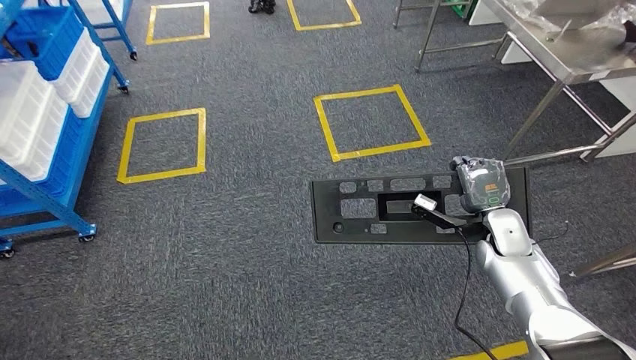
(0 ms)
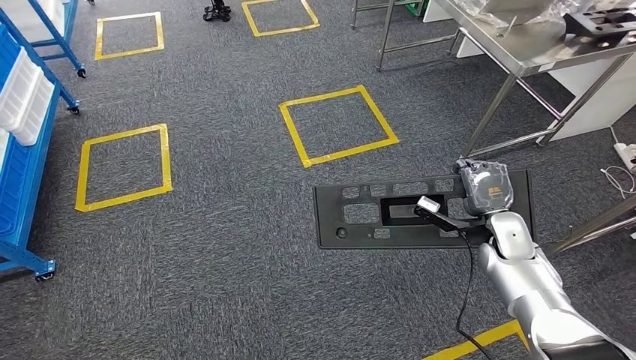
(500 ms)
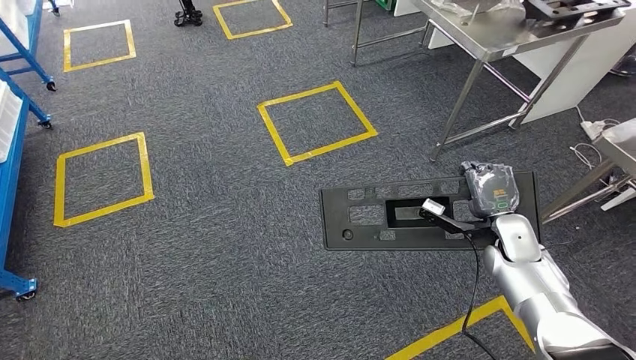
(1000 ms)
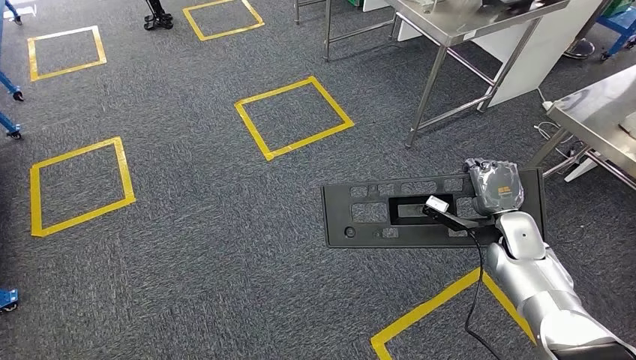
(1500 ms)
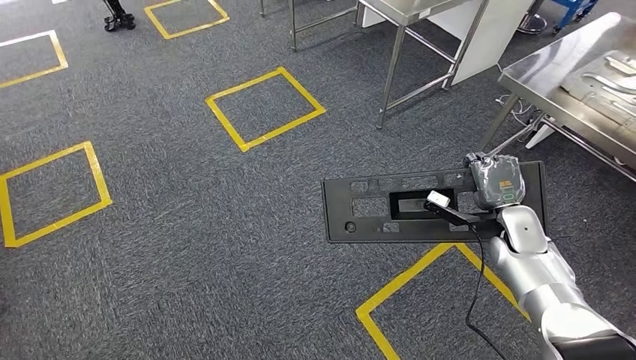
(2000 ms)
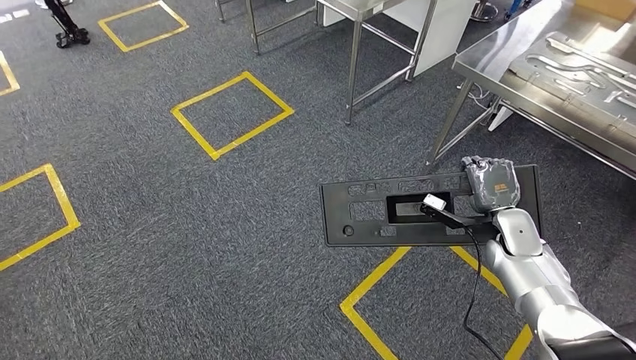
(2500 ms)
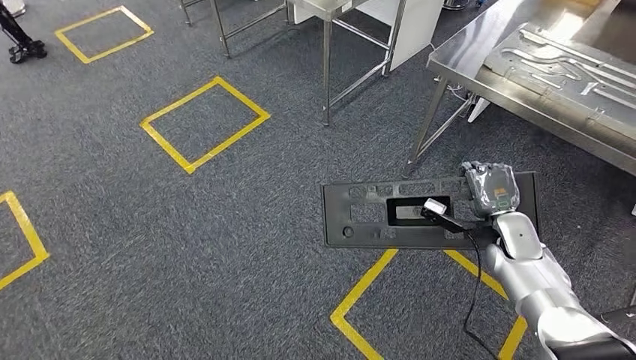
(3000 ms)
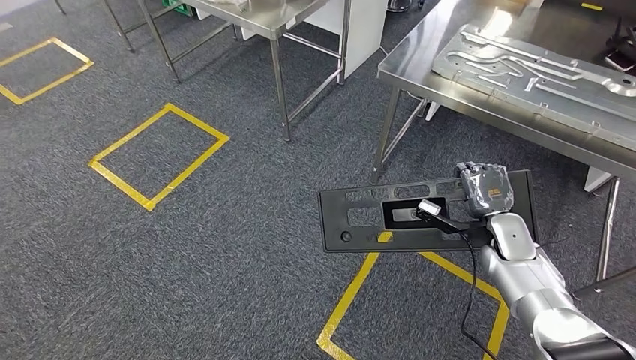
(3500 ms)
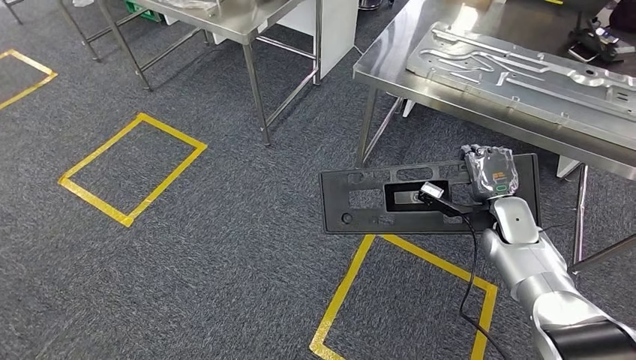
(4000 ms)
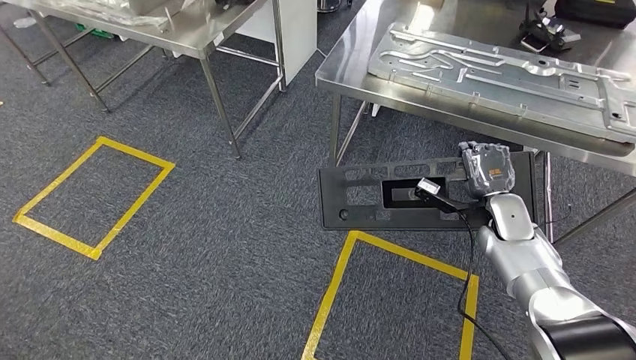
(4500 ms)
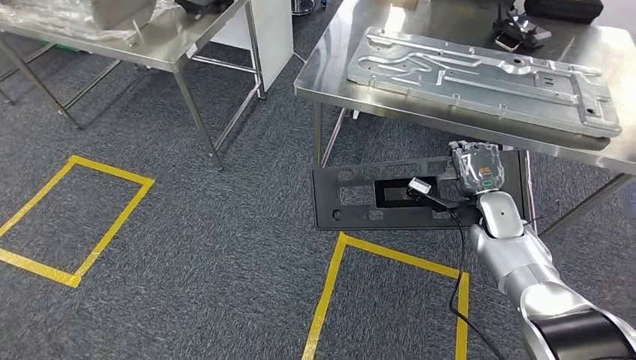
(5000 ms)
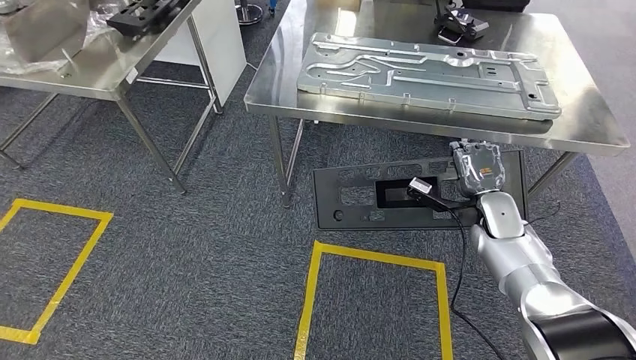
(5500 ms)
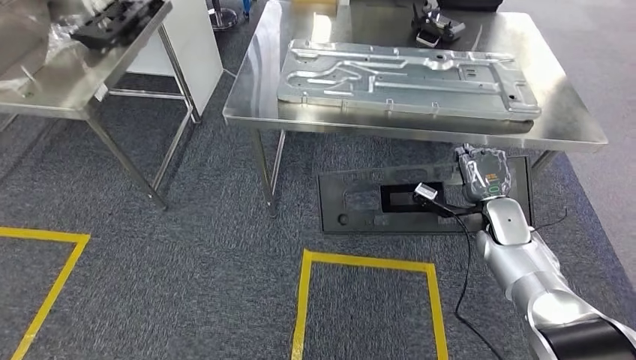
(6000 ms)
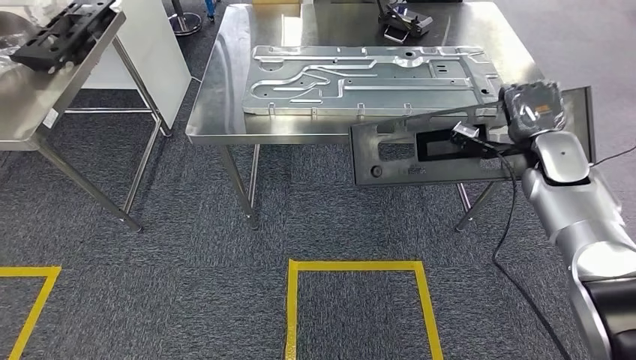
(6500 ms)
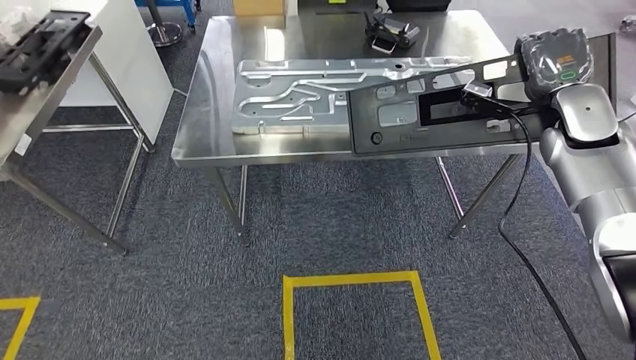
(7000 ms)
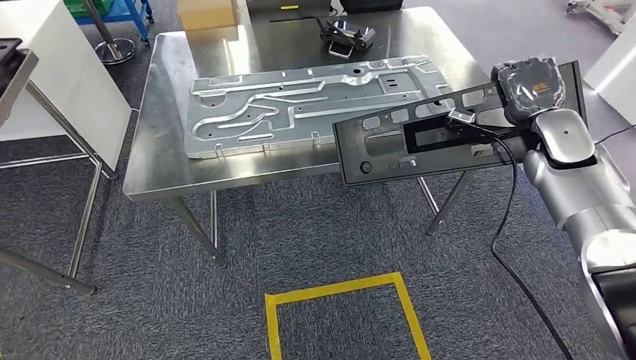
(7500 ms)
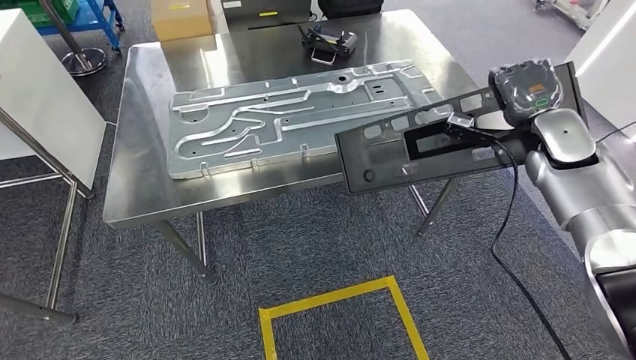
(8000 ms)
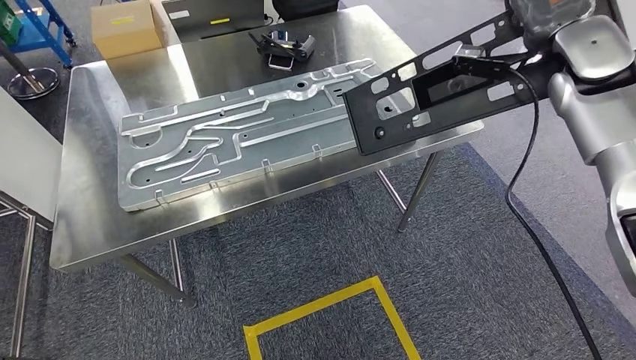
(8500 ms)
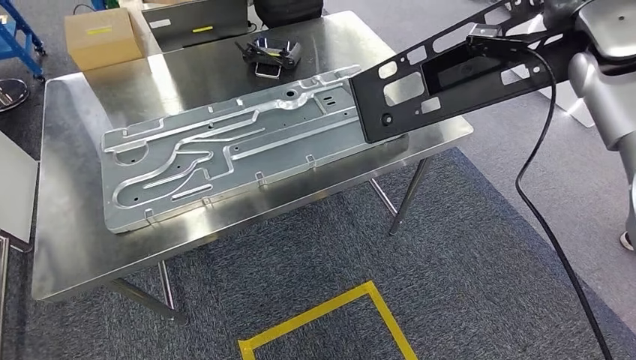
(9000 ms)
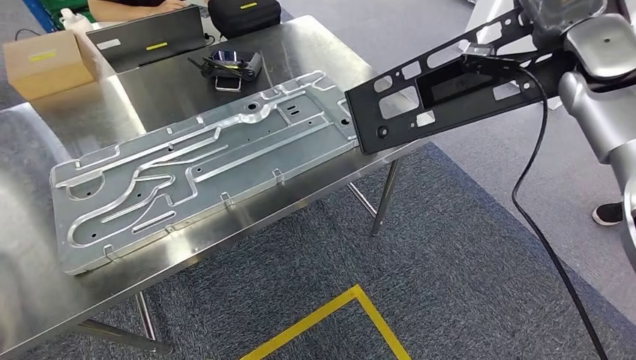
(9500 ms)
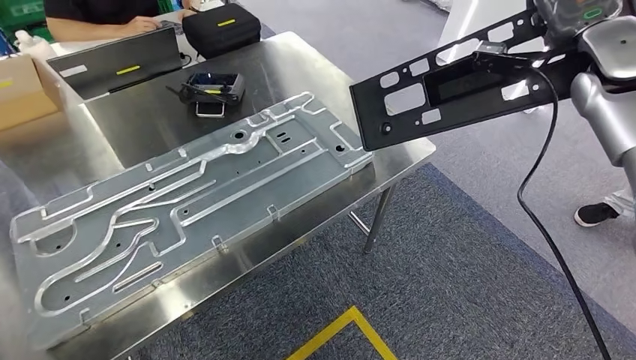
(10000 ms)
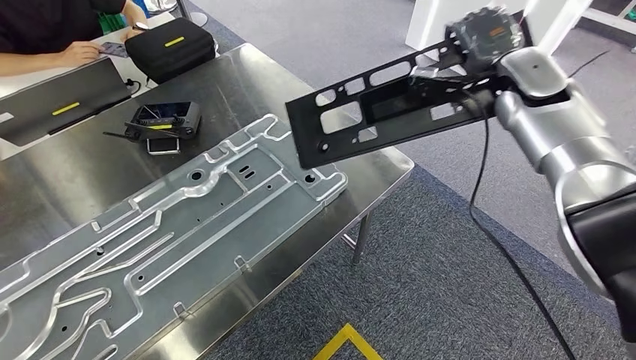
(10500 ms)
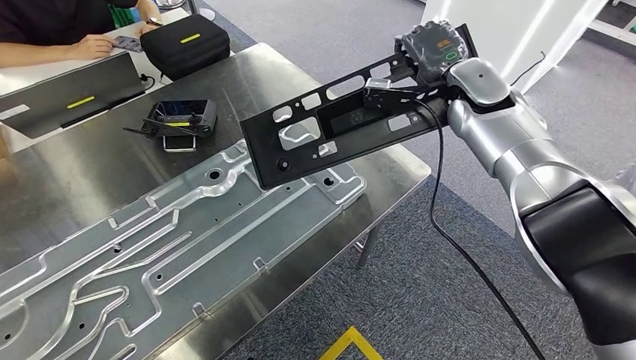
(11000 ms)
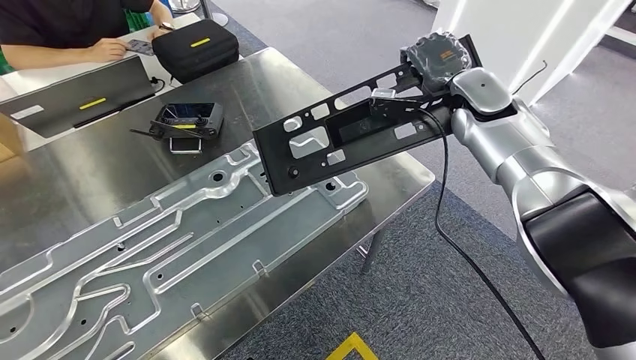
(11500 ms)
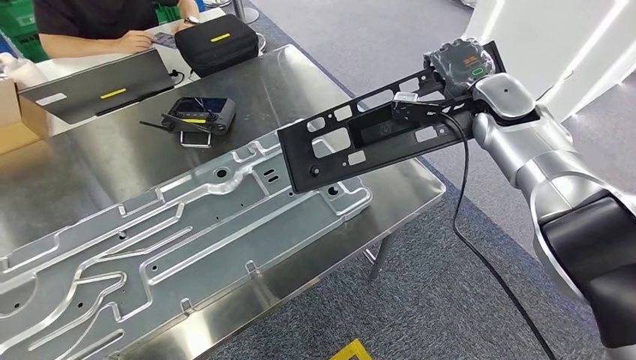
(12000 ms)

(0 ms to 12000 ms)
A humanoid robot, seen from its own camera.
Step, 0 ms - 7500 ms: Move the large material to the workbench.

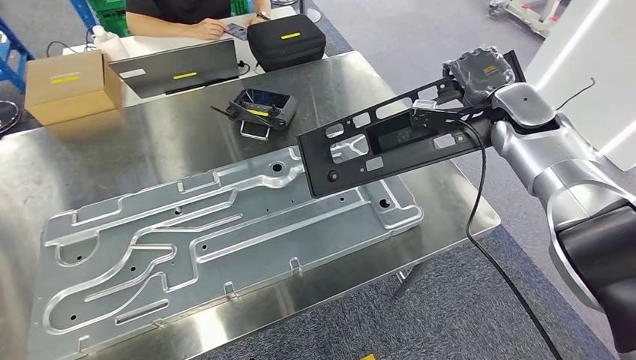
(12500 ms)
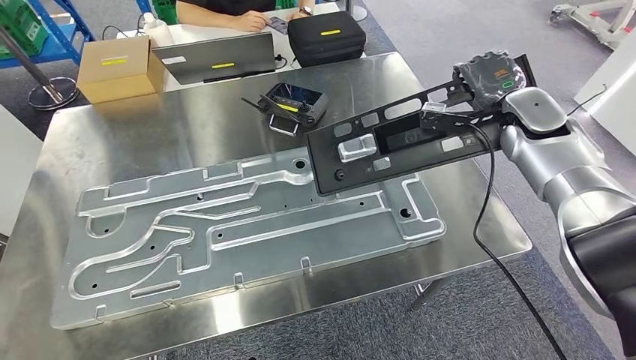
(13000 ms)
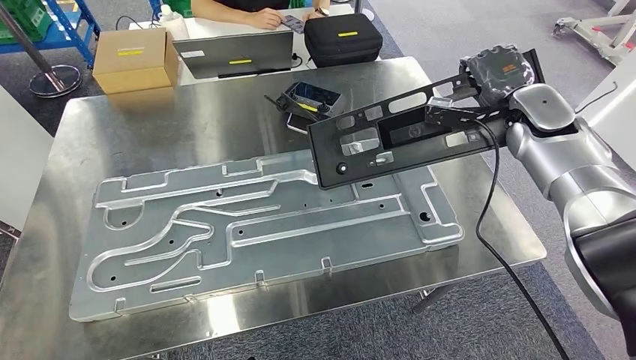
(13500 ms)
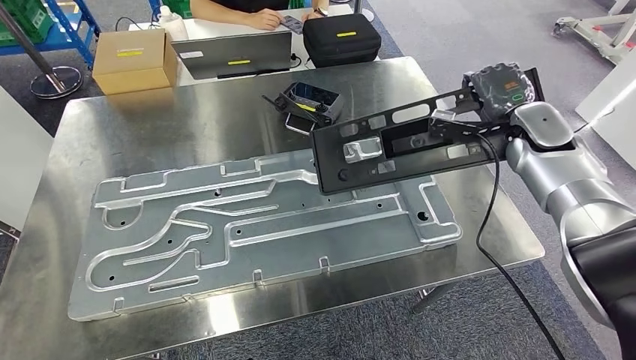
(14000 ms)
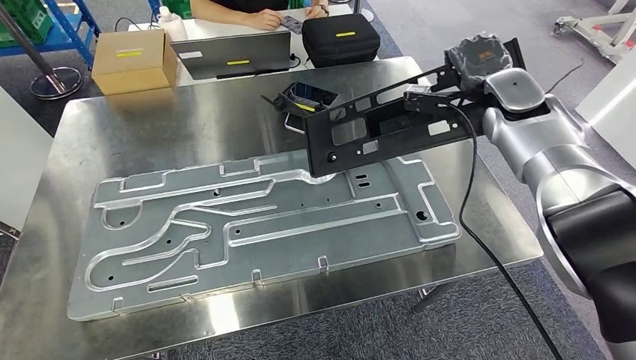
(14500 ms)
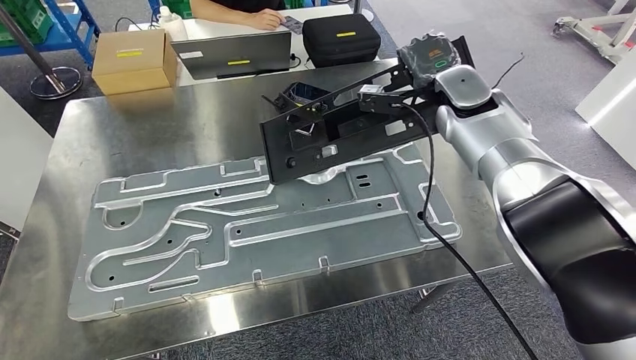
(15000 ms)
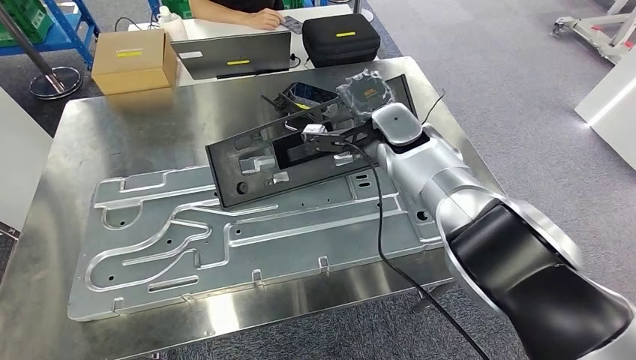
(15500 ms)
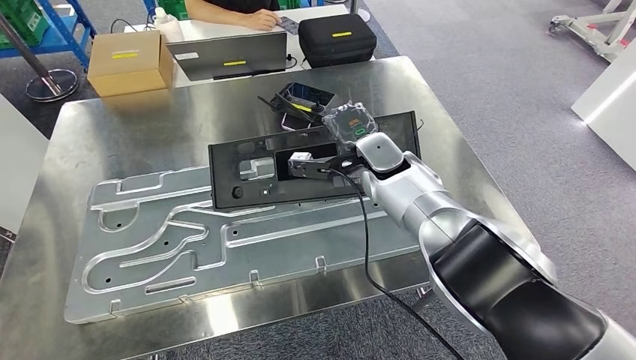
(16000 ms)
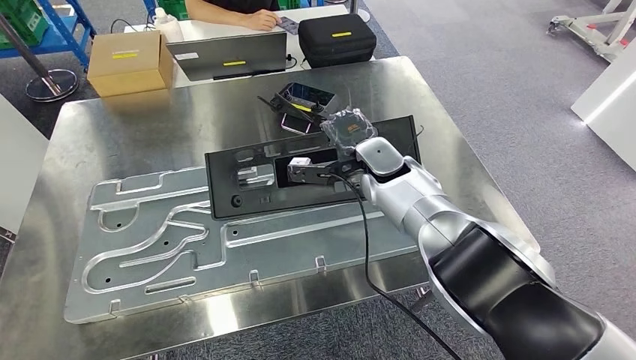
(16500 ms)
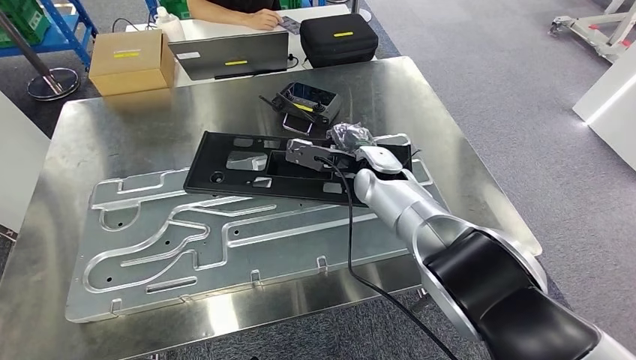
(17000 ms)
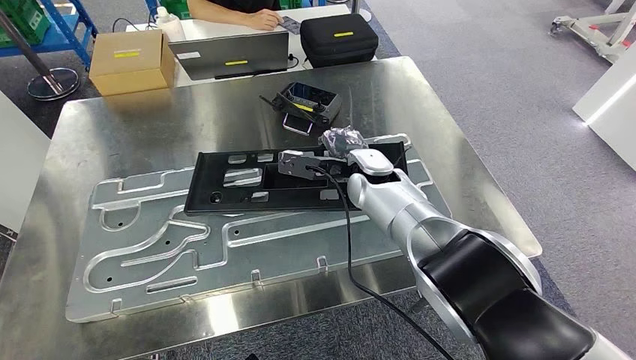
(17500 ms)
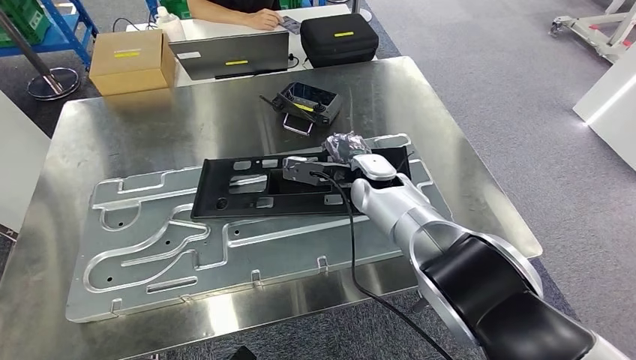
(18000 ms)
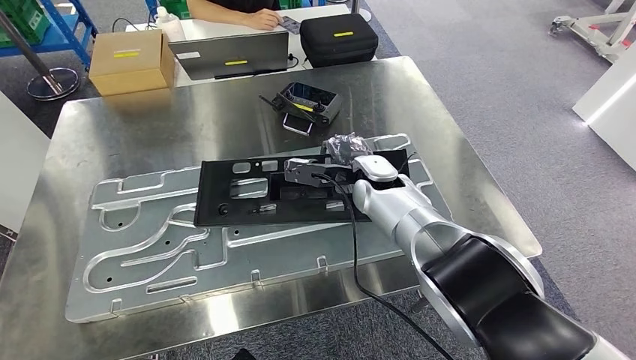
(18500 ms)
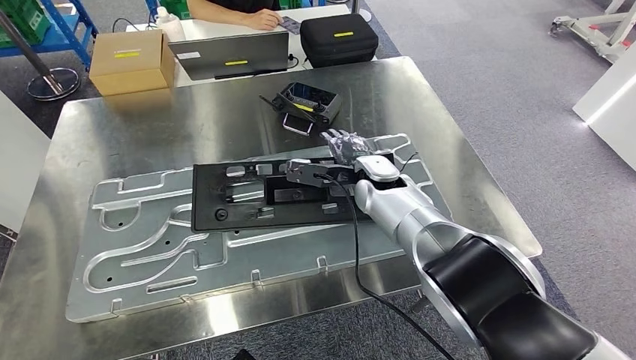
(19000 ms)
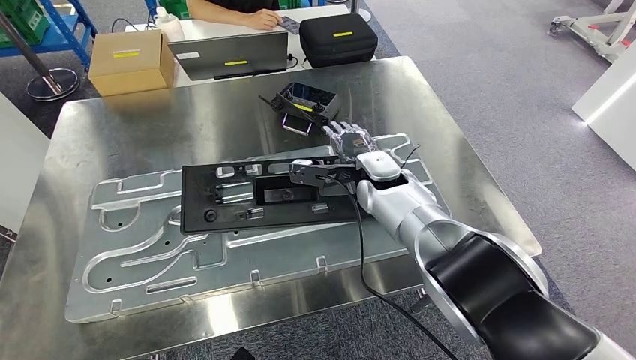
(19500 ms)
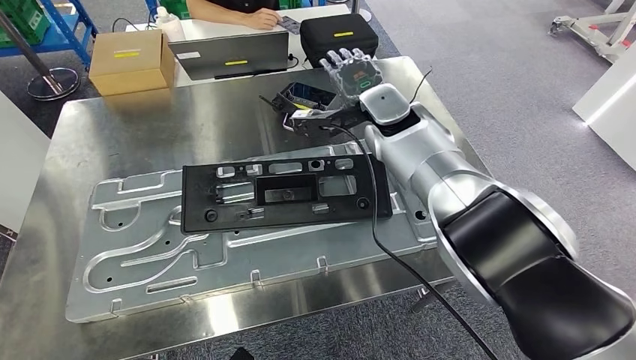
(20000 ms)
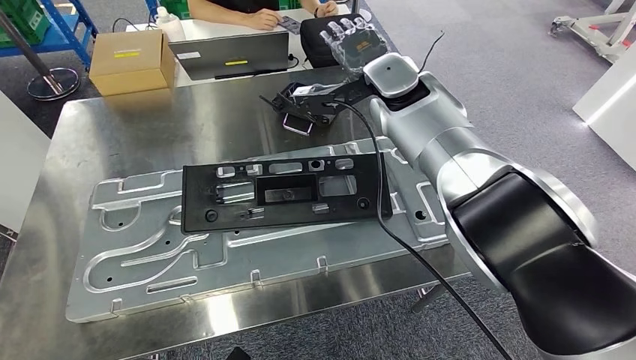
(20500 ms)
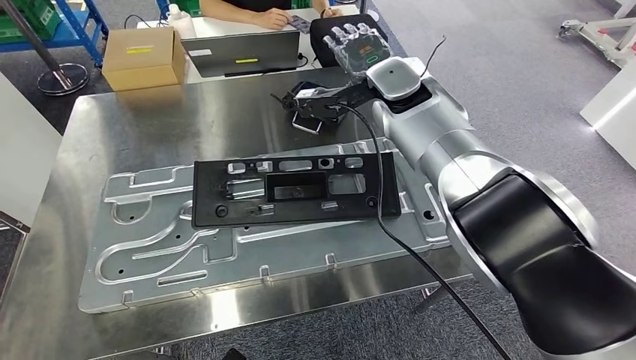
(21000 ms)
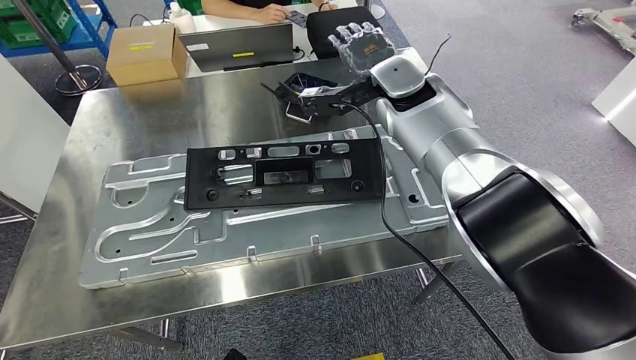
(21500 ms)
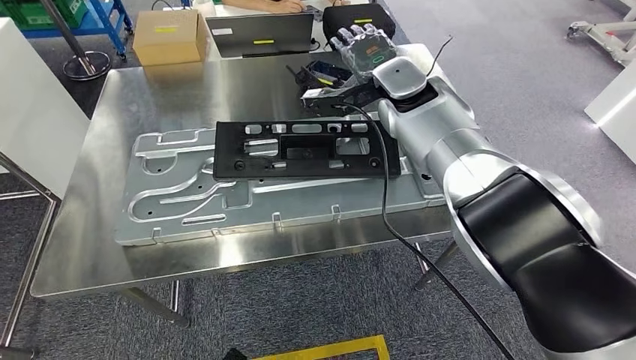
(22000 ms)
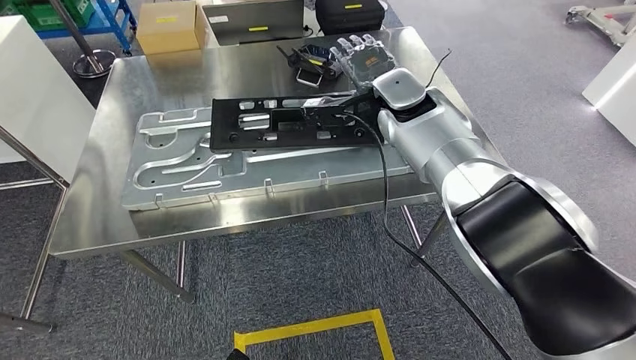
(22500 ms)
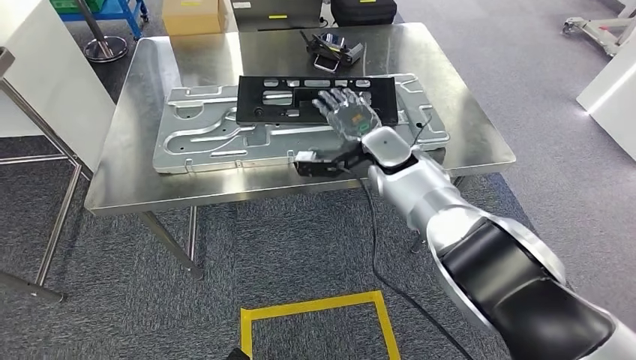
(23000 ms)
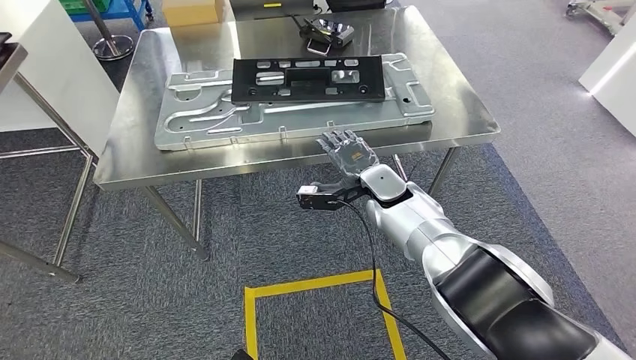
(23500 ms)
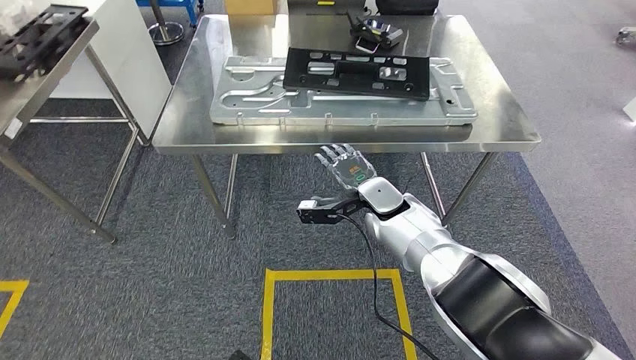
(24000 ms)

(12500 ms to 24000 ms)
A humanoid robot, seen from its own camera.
Step, 12500 ms - 21000 ms: Insert the large material into the corresponding slot on the workbench.
